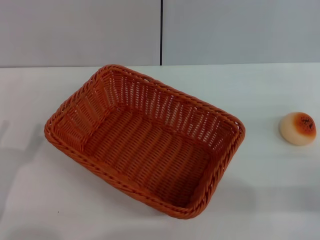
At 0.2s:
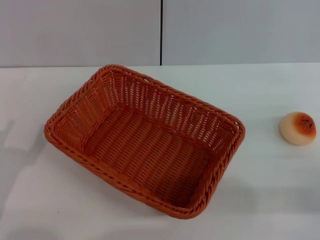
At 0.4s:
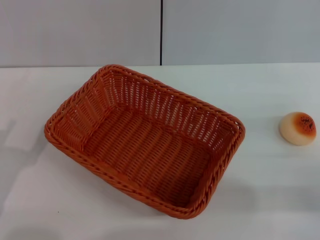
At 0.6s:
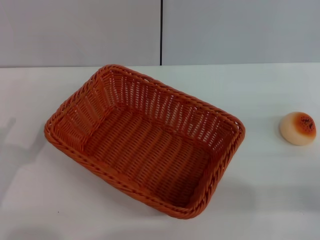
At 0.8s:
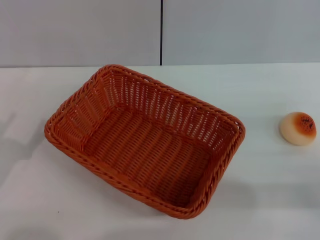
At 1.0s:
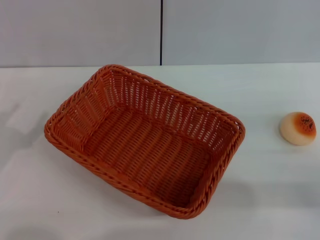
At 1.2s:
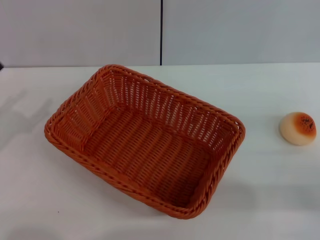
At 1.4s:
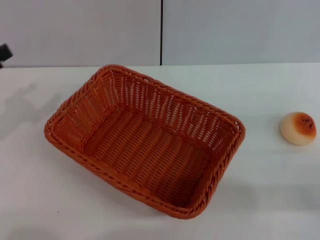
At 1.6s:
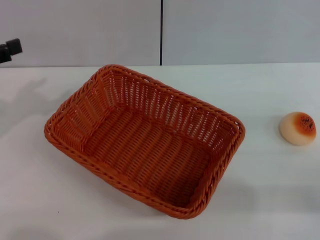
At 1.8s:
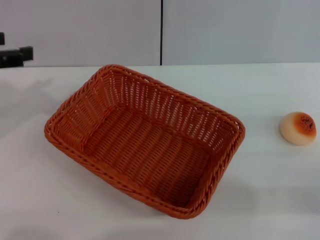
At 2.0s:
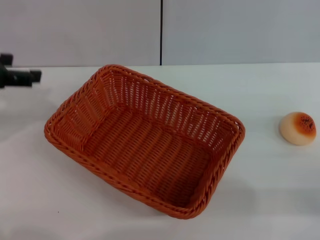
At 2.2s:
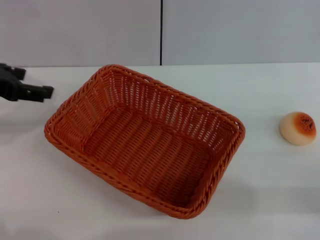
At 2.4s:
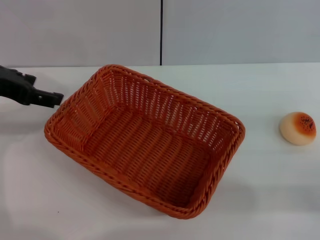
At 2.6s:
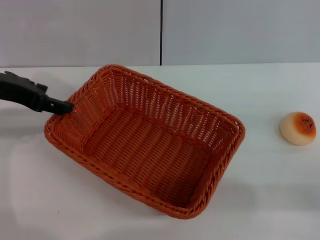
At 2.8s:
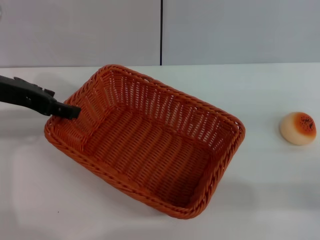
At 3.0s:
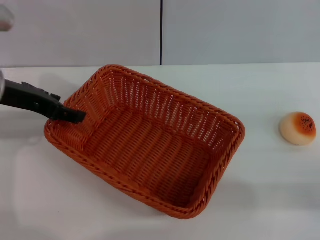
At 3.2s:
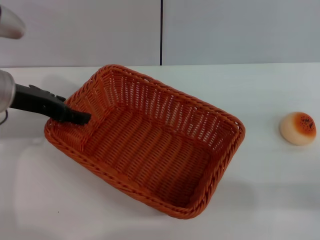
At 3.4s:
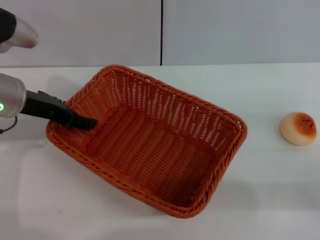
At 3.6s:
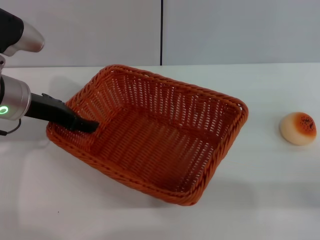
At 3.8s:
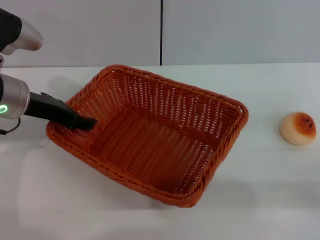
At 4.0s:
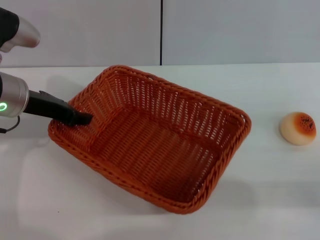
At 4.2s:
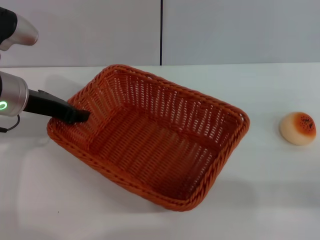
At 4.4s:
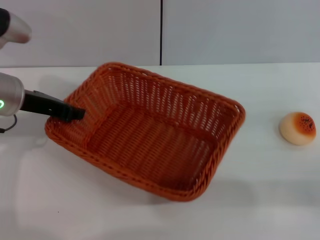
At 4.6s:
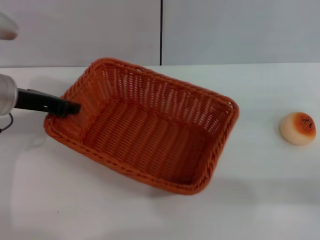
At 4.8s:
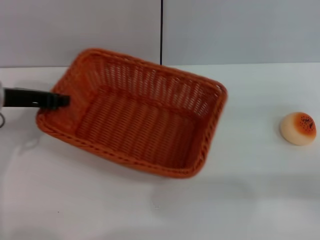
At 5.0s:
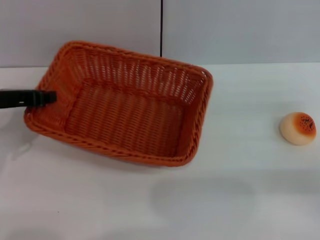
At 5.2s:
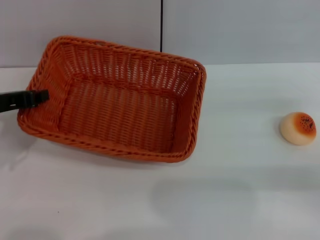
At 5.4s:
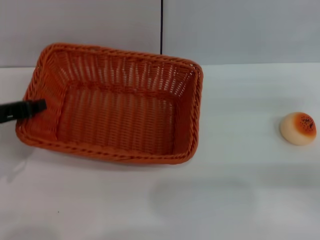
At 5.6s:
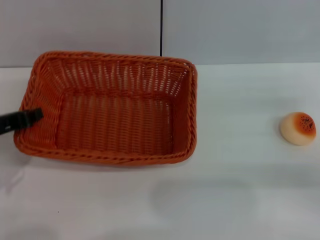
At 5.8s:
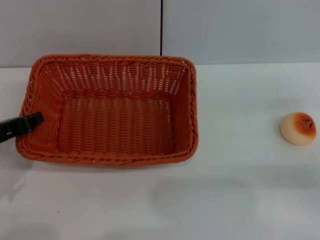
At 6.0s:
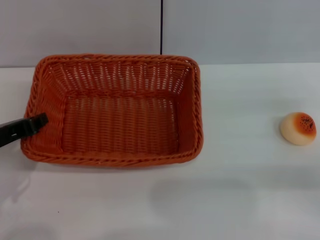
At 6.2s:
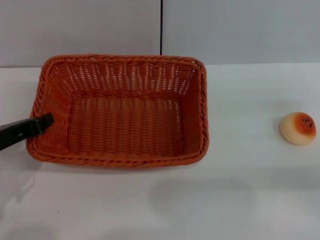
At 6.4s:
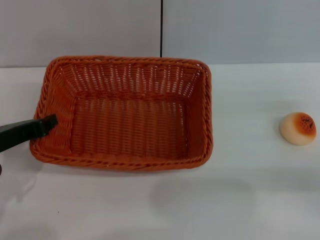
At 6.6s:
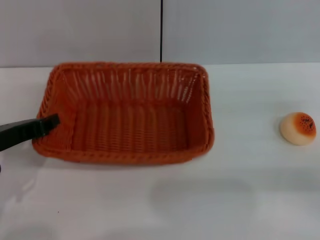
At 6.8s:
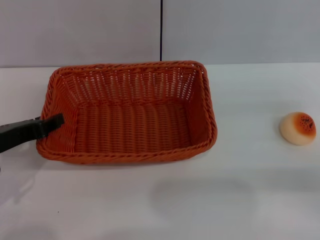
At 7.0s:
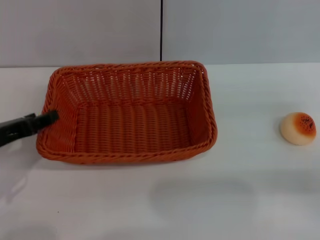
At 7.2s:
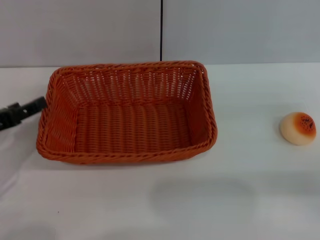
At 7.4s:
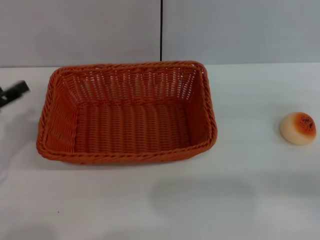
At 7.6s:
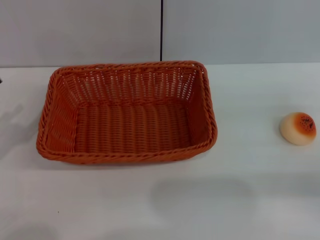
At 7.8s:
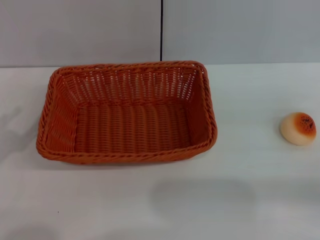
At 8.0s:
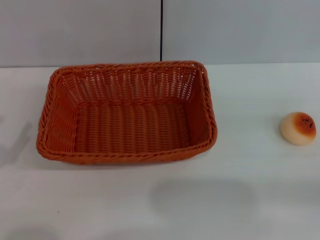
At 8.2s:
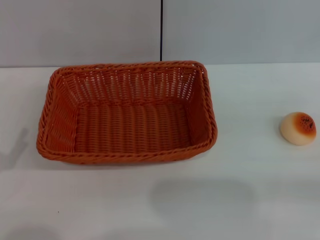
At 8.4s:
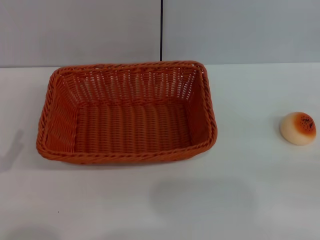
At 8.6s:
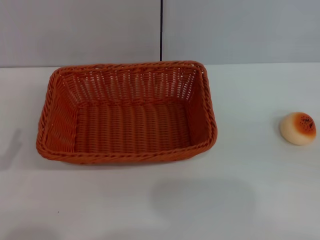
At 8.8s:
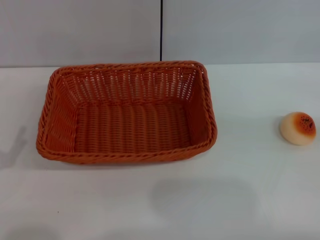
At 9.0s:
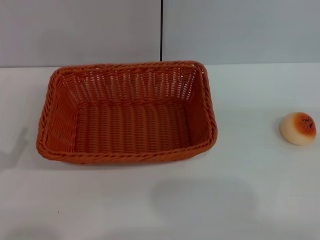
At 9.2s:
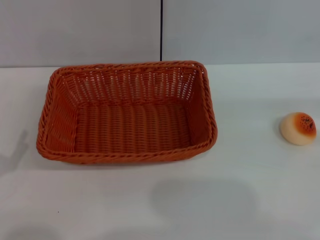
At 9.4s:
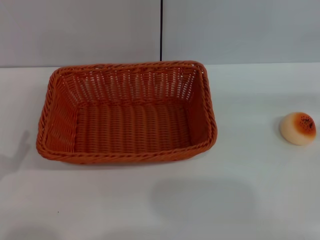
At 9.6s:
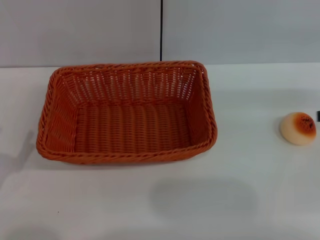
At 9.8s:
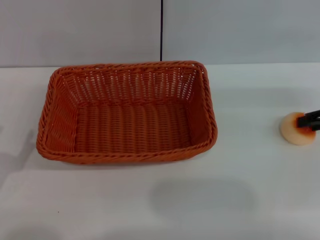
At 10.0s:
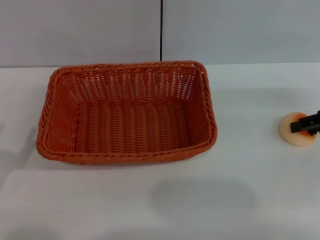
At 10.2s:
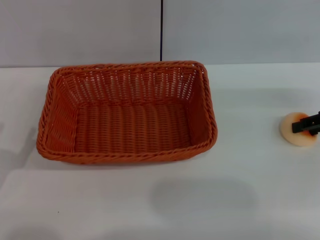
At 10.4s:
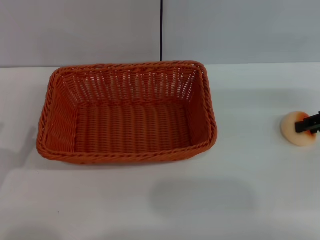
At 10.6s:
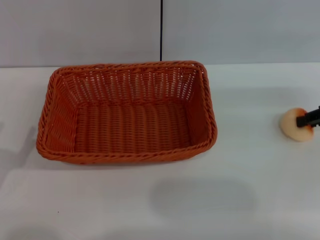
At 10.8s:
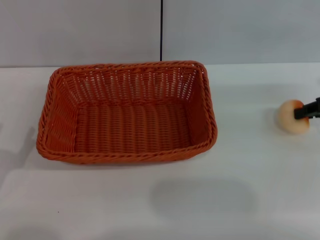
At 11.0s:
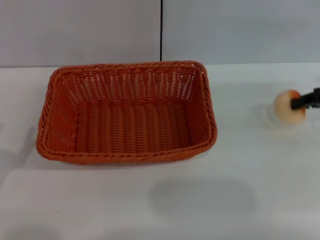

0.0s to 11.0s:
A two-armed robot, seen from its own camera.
Step, 0.0s to 7.2s: Move the basket to the center of view with the left gripper.
1.6s to 3.2s: The left gripper shifts roughly 10 cm to the right and forward.
3.2s to 4.8s: The left gripper closes.
4.8s to 6.2s: The left gripper goes approximately 10 cm backward.
6.2s to 7.8s: The left gripper heads to the left and backward, covering approximately 10 cm, and opens.
9.4s to 11.0s: The right gripper heads to the left, covering approximately 5 cm, and closes.

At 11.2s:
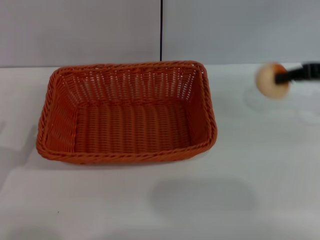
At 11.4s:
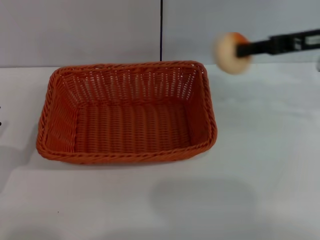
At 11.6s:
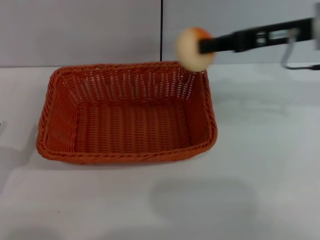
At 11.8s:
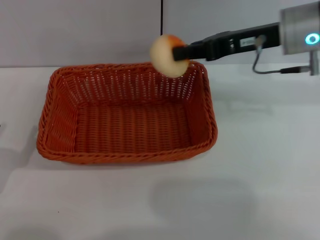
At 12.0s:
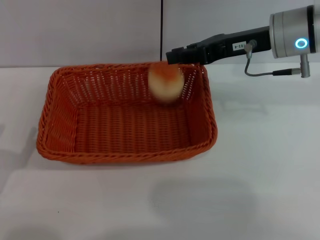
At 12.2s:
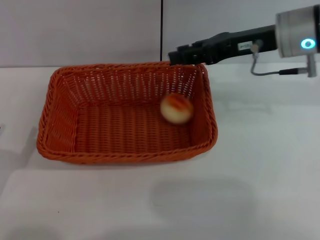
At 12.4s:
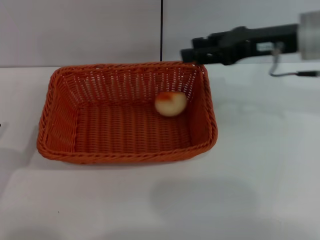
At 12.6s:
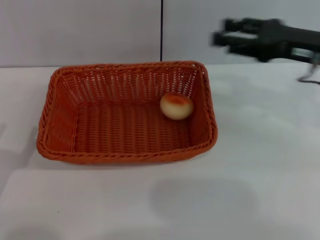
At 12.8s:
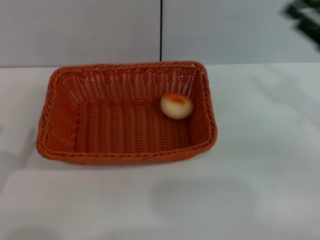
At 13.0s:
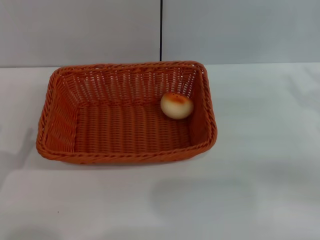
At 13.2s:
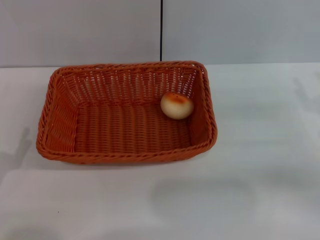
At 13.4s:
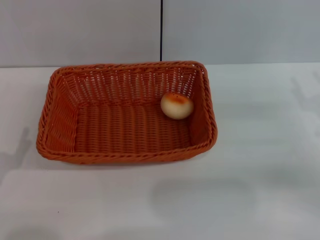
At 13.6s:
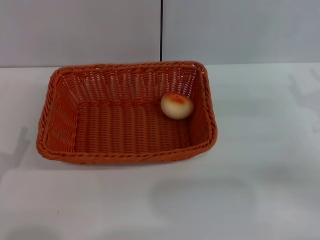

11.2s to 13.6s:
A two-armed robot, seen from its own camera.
Step, 11.4s to 12.2s: Place the egg yolk pastry into the basket with the right gripper.
11.2s to 12.4s: The right gripper travels to the left by approximately 10 cm, and opens.
12.4s to 13.6s: The right gripper is displaced downward, to the right and backward by some 20 cm.

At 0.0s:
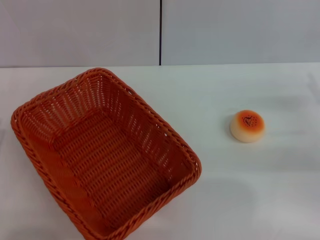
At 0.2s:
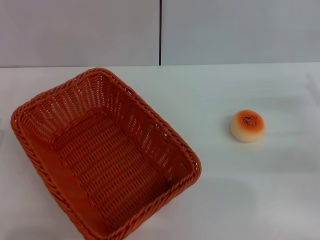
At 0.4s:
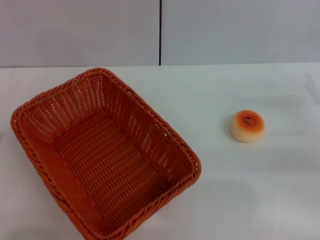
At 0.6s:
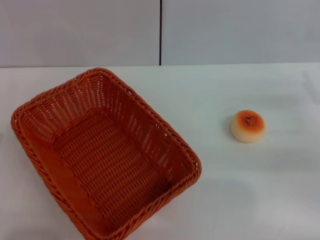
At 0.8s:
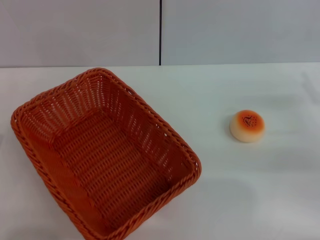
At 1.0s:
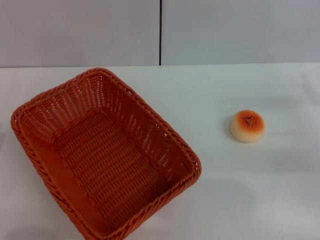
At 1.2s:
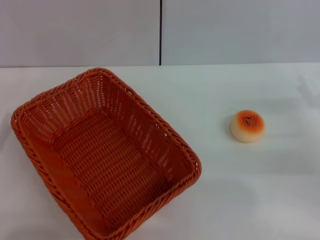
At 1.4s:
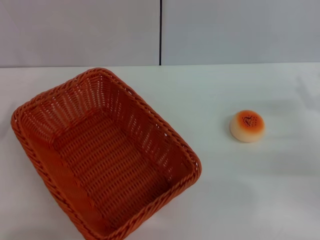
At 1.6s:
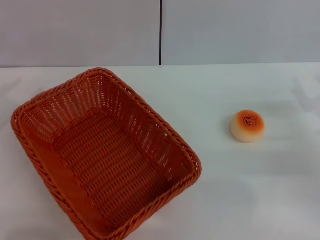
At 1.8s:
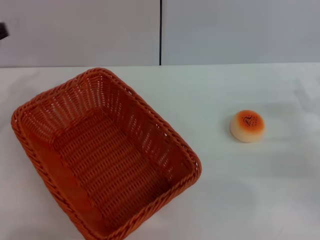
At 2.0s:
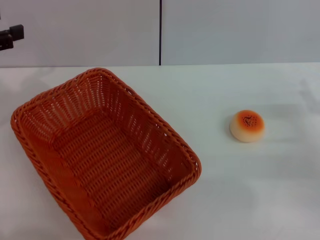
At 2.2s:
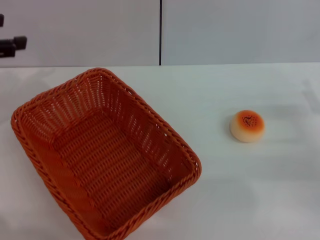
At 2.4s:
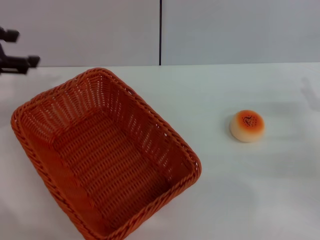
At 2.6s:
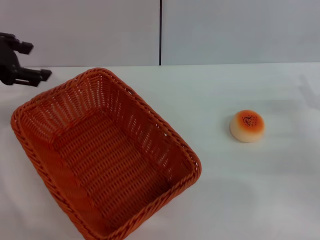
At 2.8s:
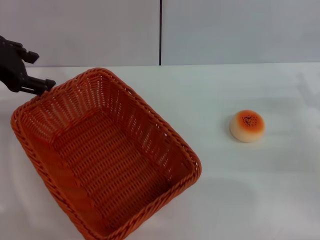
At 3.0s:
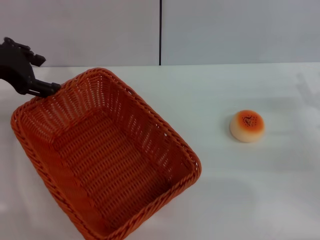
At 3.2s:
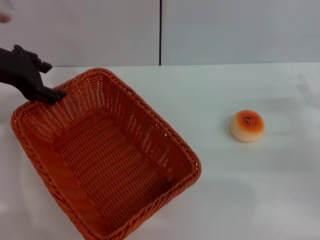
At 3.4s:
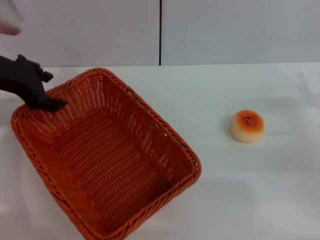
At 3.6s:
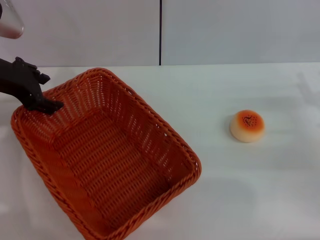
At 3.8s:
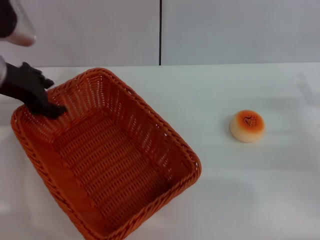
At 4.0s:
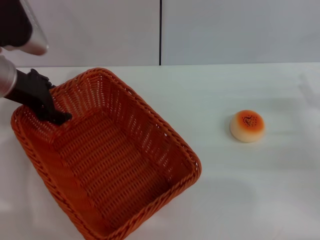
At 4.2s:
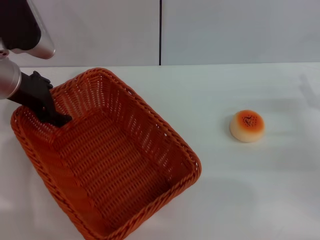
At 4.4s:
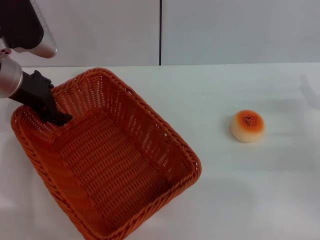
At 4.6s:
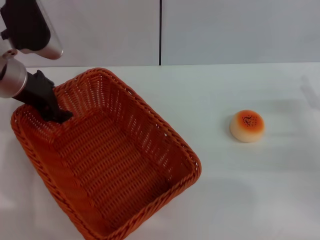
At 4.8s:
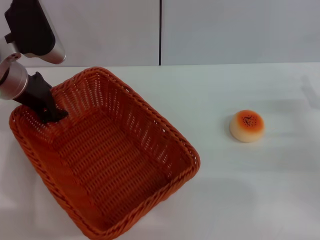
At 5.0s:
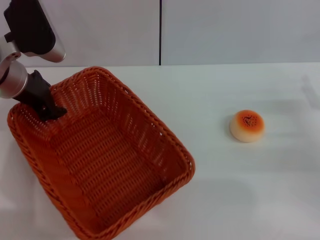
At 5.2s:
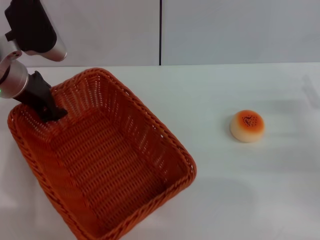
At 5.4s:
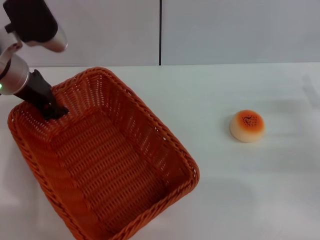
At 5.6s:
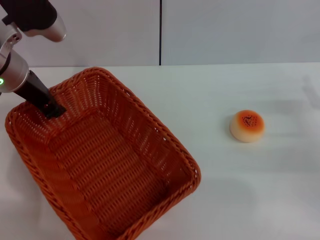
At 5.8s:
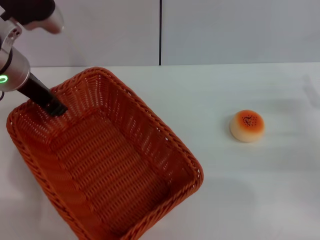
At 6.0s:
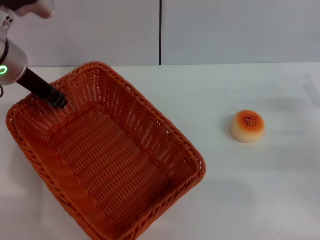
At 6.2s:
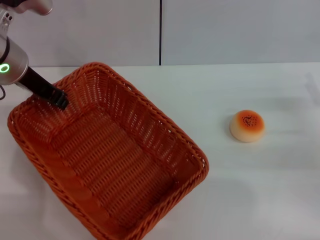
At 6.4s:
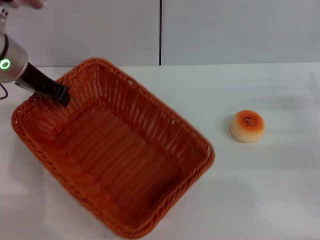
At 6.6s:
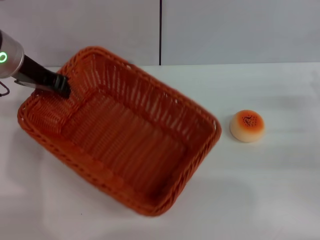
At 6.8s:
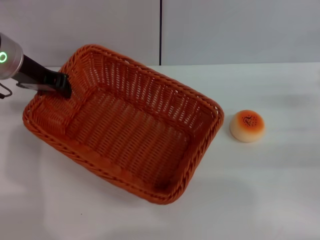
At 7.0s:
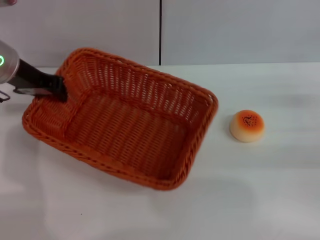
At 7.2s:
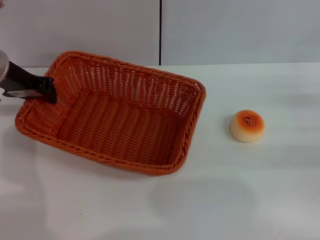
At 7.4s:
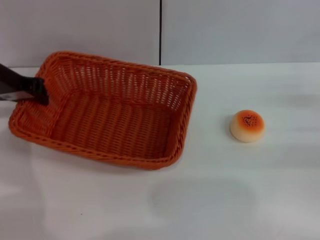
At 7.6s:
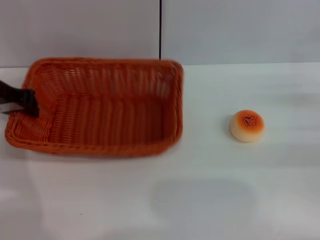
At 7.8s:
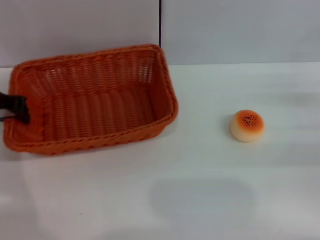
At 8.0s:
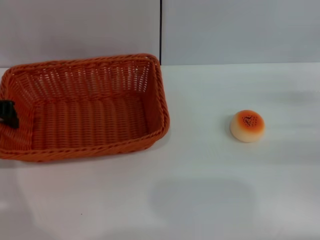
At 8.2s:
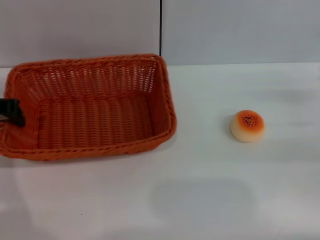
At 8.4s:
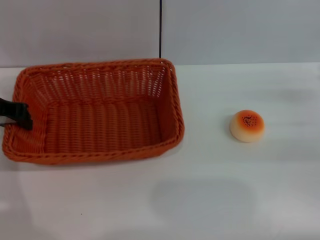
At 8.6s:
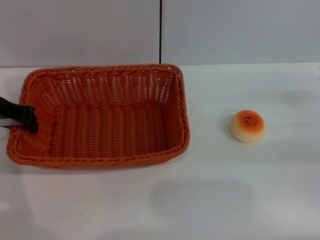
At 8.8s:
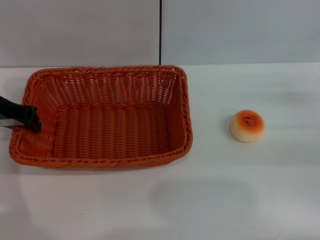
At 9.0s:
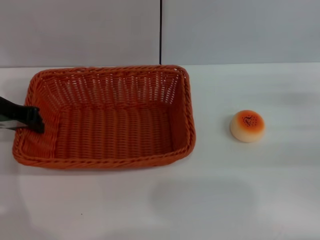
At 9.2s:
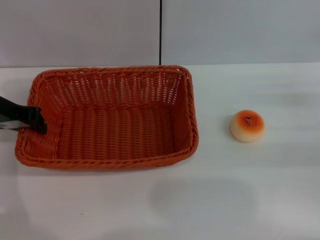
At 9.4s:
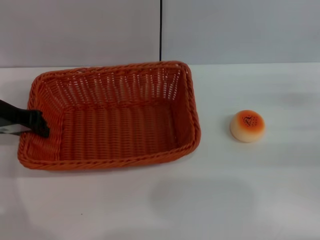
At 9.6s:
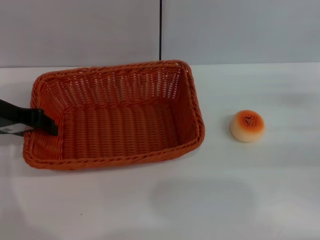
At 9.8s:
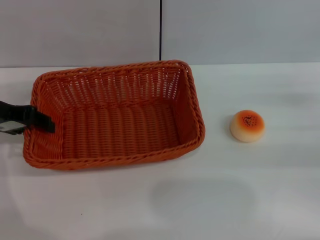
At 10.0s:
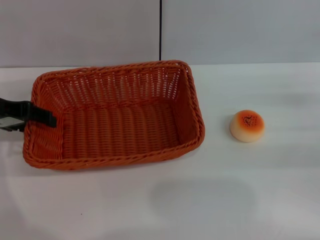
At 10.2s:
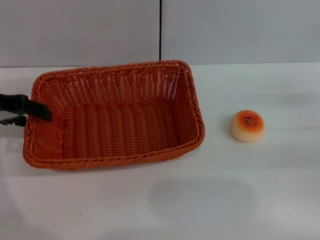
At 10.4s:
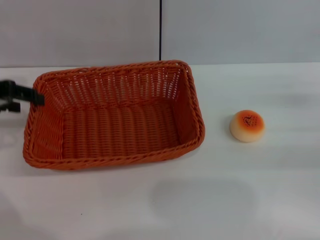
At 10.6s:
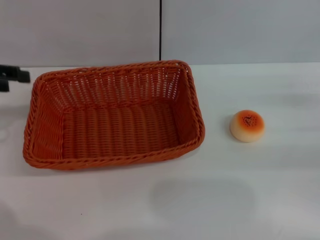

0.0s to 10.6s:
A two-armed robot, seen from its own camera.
1.6s to 3.0s: The left gripper shifts roughly 15 cm to the right, forward and upward.
3.0s to 4.6s: The left gripper travels downward by approximately 5 cm.
4.6s to 6.0s: The left gripper closes.
6.0s to 7.6s: The left gripper travels to the left by about 5 cm.
7.6s to 9.0s: The grippers make only small movements.
9.0s to 10.6s: The left gripper moves to the left, about 5 cm, and opens up.
